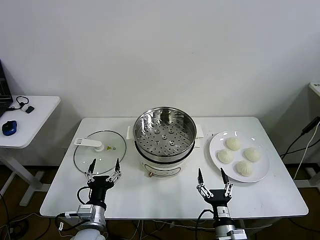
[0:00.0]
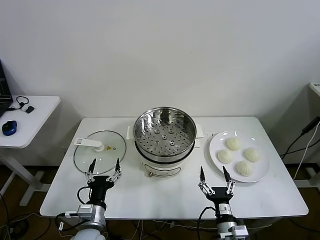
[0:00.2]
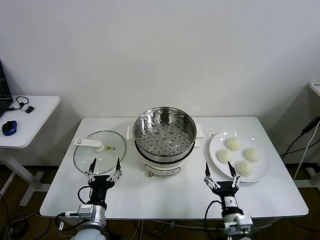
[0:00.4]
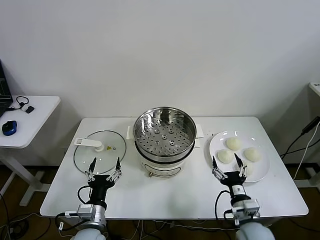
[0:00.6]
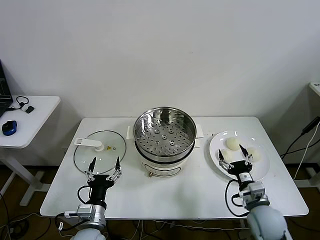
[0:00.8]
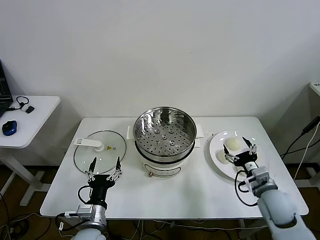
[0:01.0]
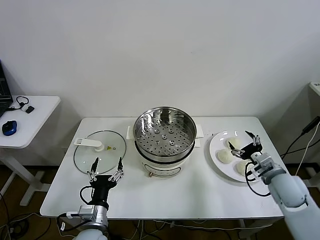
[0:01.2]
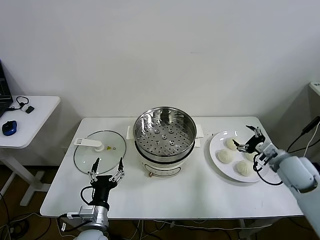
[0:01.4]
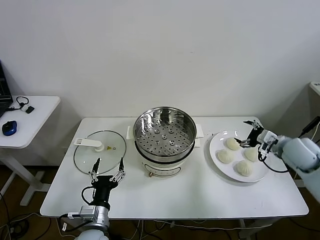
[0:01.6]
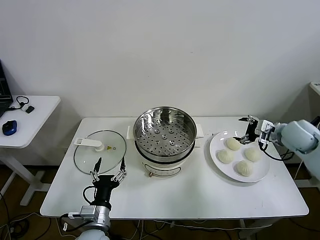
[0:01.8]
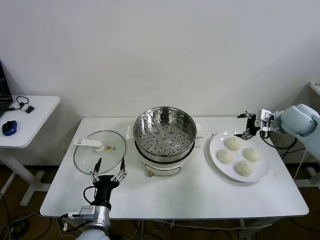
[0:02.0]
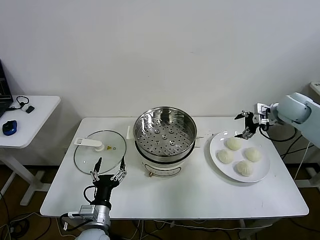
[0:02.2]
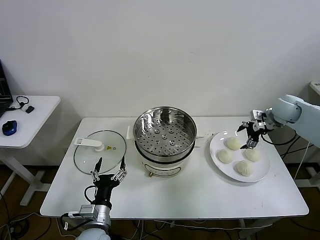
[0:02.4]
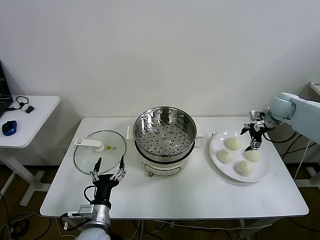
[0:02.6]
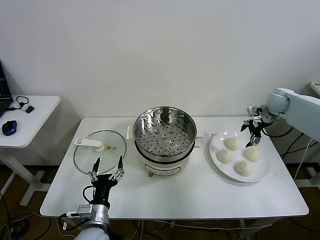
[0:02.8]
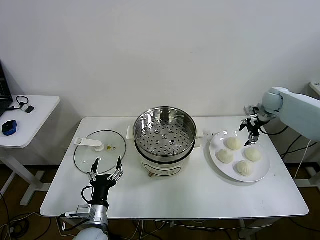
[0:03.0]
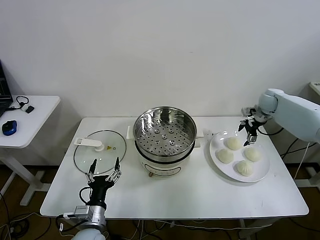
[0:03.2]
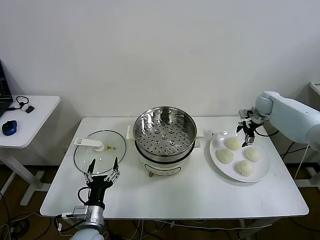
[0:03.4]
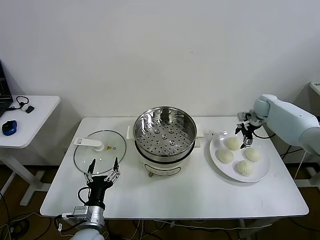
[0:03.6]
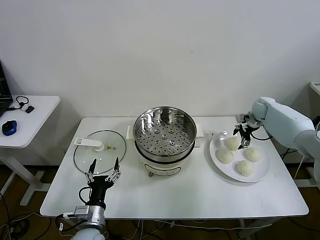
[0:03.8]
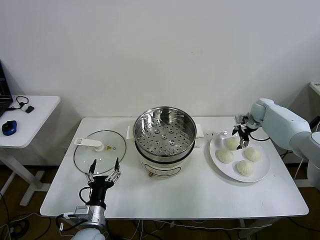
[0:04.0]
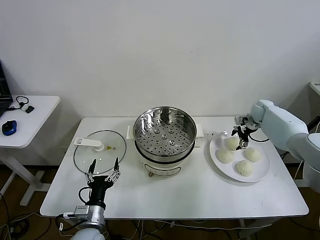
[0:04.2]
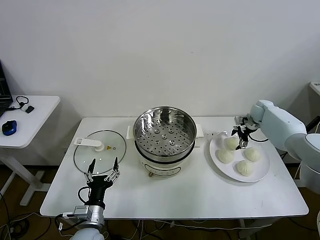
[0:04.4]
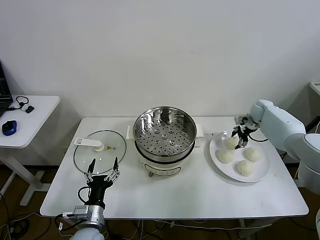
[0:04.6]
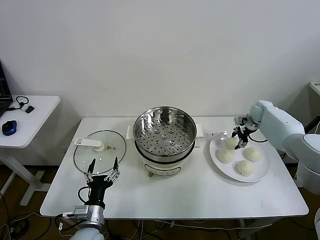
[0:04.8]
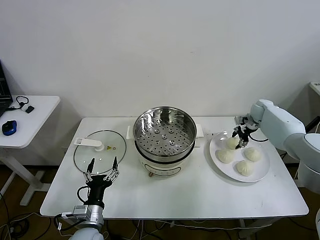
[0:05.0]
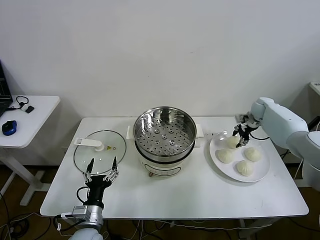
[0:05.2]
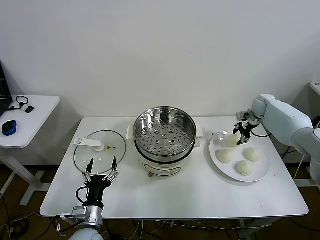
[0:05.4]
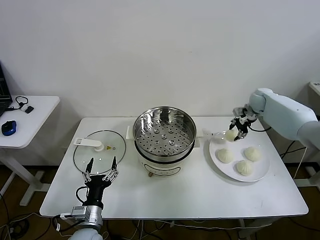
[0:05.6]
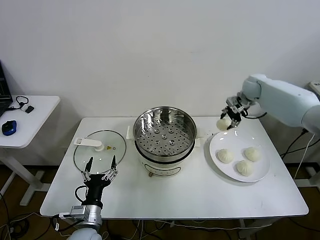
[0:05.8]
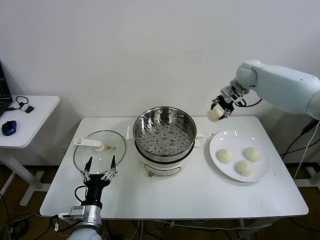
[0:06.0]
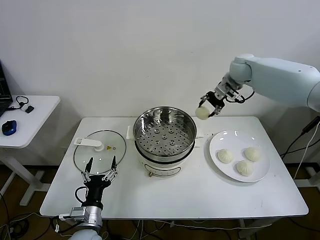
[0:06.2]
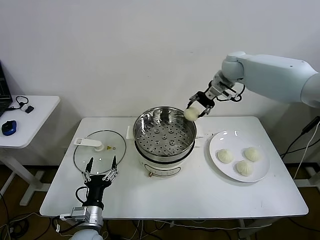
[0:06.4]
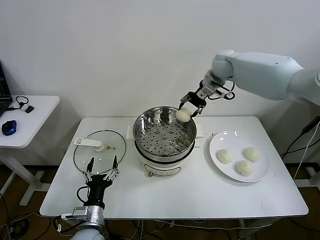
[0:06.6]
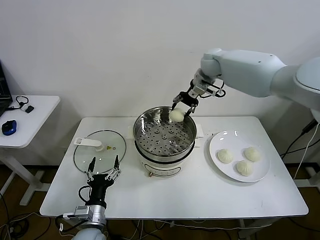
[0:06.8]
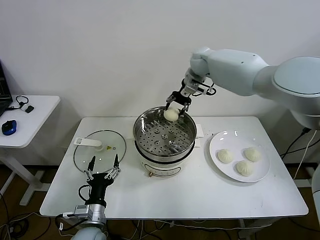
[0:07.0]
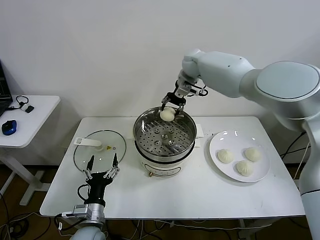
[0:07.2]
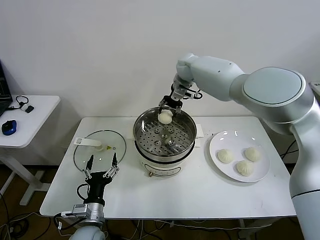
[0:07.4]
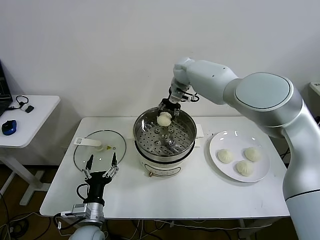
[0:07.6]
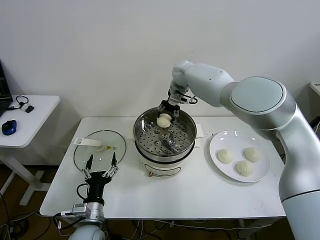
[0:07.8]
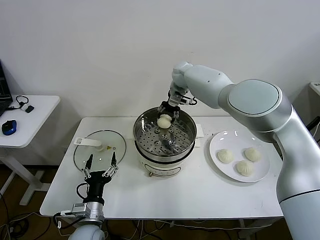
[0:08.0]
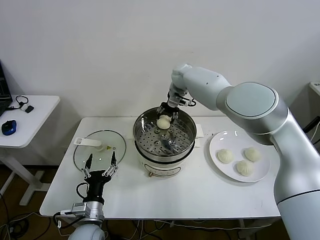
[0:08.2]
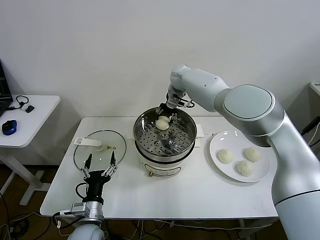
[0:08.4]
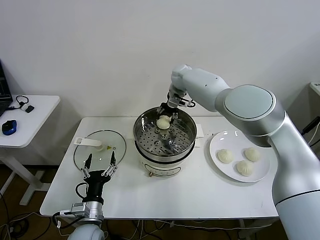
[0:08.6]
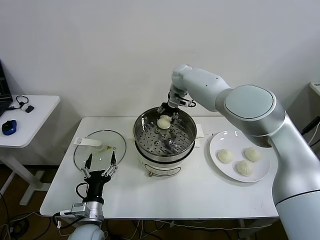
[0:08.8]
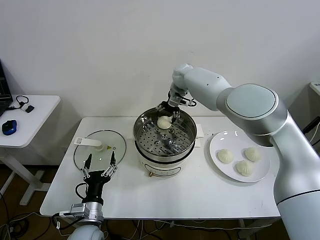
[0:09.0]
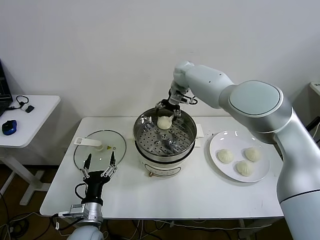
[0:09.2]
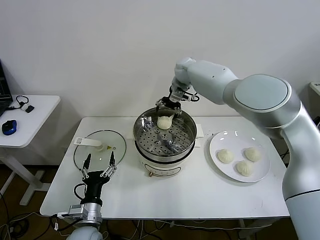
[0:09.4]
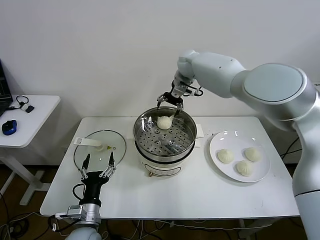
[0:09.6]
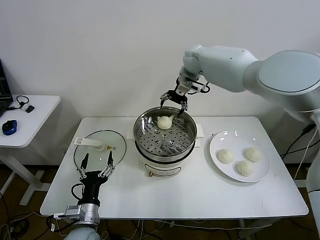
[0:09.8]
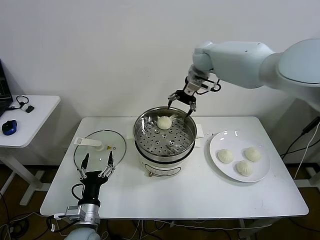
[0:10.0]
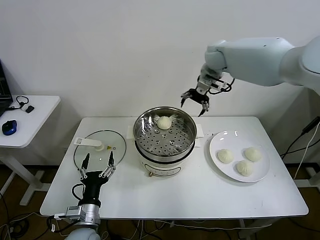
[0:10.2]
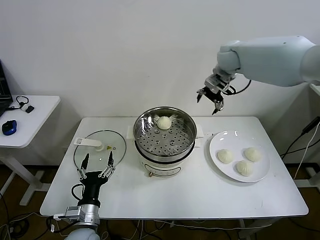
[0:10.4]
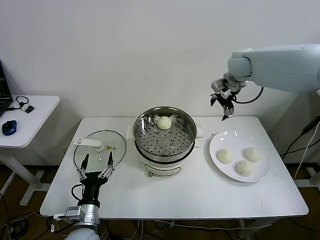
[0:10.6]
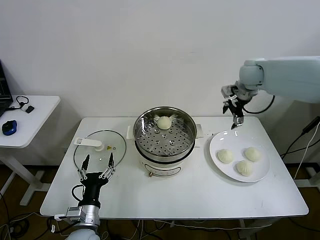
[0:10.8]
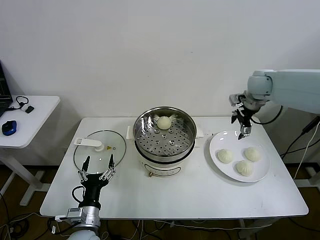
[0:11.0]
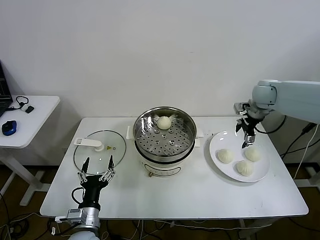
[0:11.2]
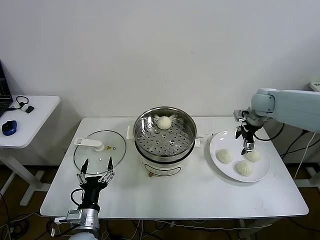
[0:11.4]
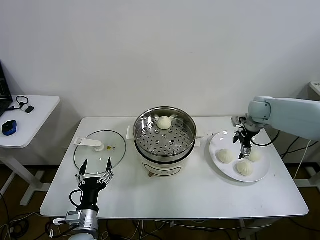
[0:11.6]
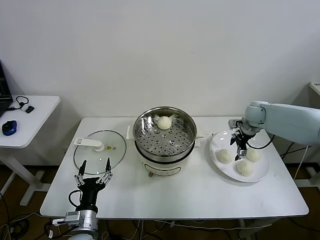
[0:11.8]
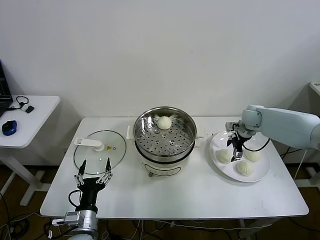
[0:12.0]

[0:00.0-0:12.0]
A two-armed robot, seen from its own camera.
Step, 0:00.0 to 0:04.8: Grasp the baozi in the plate with right gripper.
Step, 0:05.0 to 0:09.2: Place the baozi on the steamer with right gripper.
0:01.6 to 0:03.0: The right gripper is displaced forward by approximately 20 cm.
0:03.0 to 0:04.4: The right gripper is displaced downward by approximately 10 cm.
0:04.4 to 0:06.0: The right gripper moves upward and to the left, some 25 cm, and closes.
0:06.0 to 0:07.6: The right gripper is displaced to the left by approximately 20 cm.
0:07.6 to 0:09.0: The right gripper opens its fingers.
0:09.0 to 0:10.4: The right gripper shifts some 20 cm to the right, upward and backward.
0:10.4 to 0:12.0: The right gripper travels downward and to the right by roughly 25 cm.

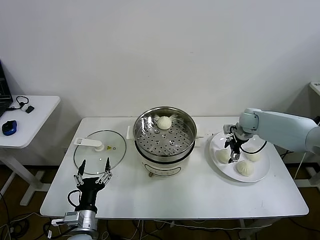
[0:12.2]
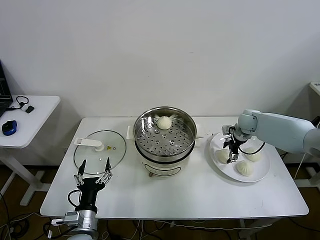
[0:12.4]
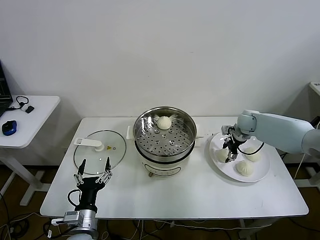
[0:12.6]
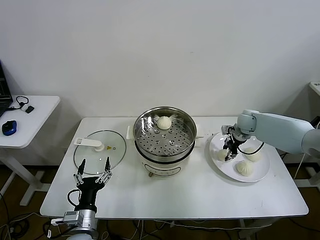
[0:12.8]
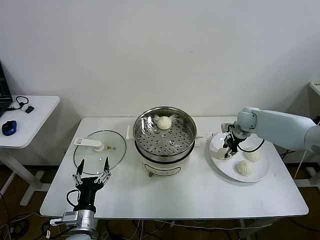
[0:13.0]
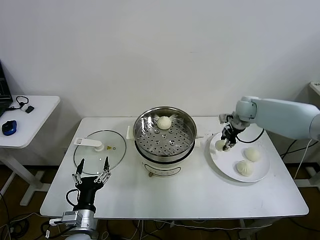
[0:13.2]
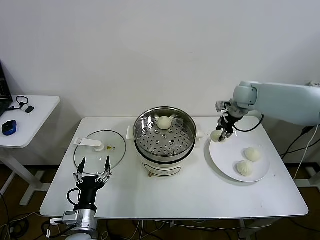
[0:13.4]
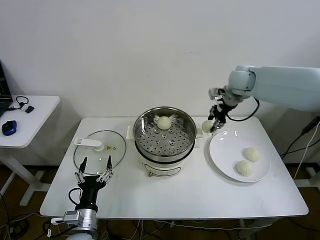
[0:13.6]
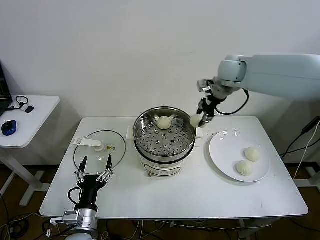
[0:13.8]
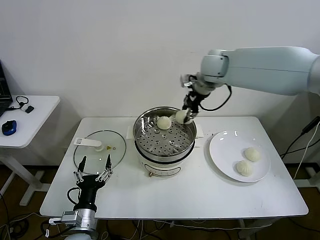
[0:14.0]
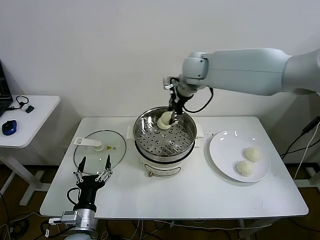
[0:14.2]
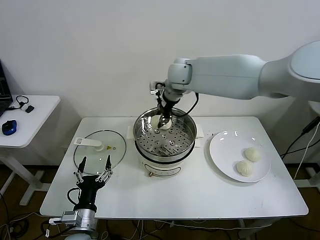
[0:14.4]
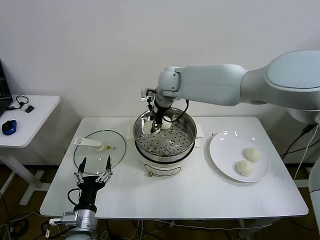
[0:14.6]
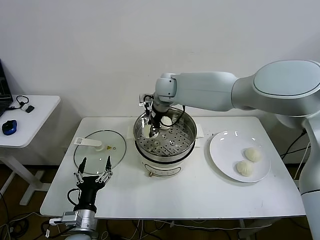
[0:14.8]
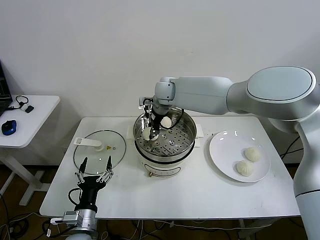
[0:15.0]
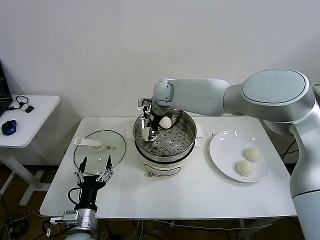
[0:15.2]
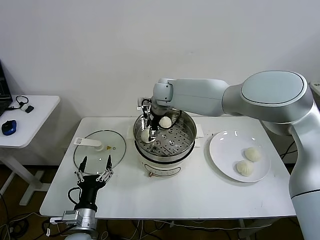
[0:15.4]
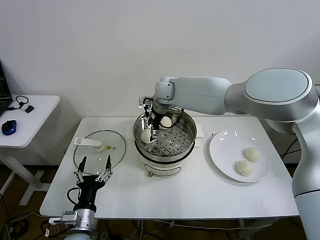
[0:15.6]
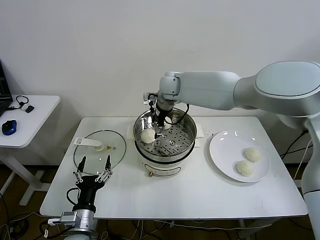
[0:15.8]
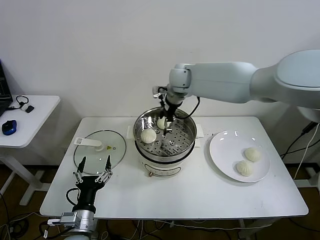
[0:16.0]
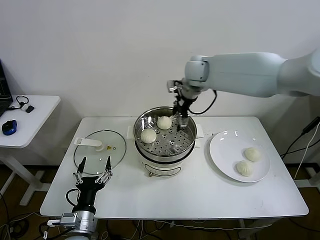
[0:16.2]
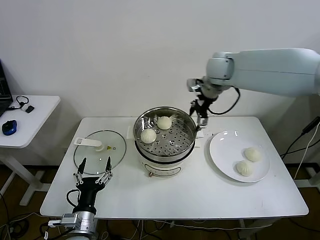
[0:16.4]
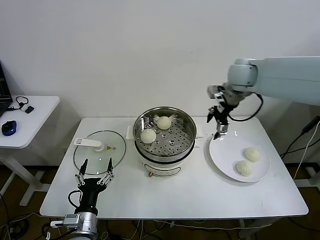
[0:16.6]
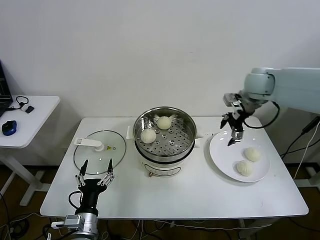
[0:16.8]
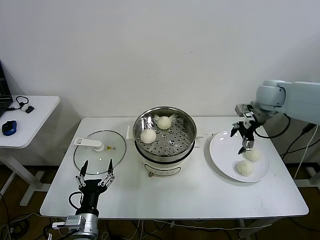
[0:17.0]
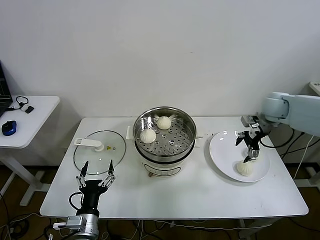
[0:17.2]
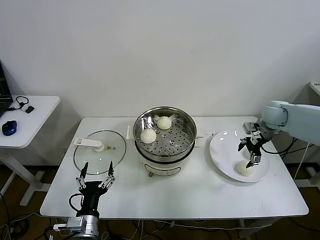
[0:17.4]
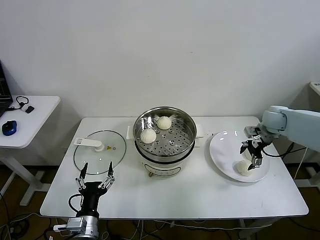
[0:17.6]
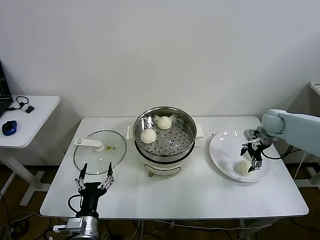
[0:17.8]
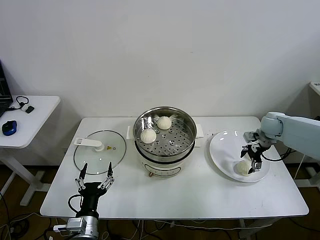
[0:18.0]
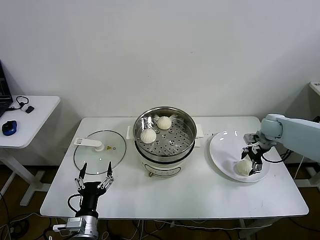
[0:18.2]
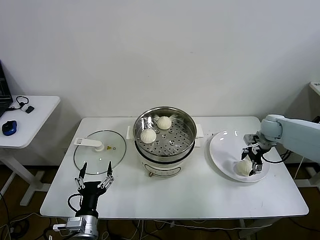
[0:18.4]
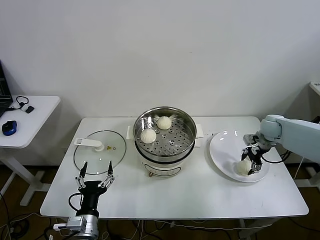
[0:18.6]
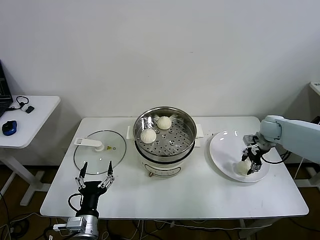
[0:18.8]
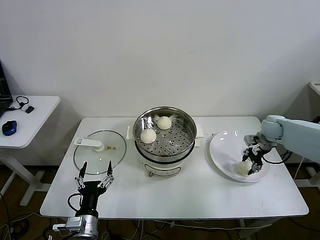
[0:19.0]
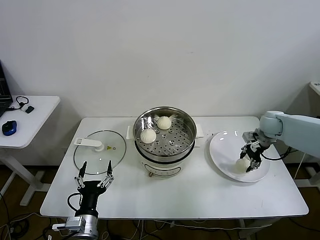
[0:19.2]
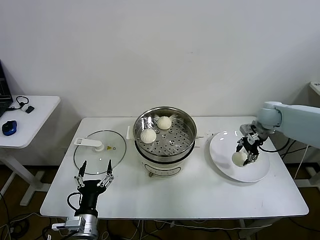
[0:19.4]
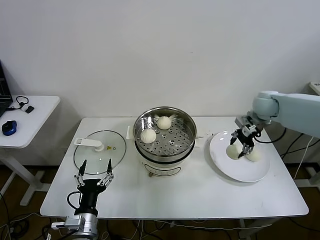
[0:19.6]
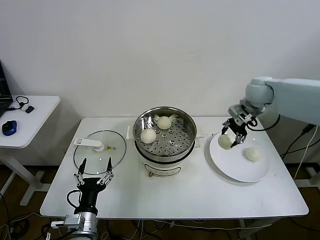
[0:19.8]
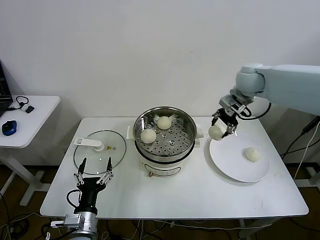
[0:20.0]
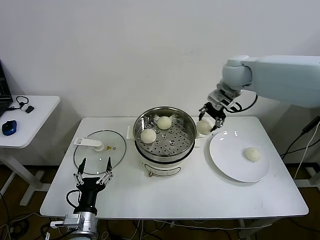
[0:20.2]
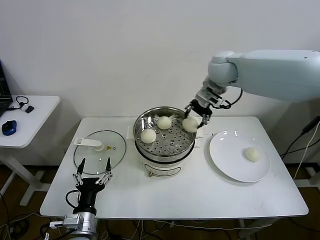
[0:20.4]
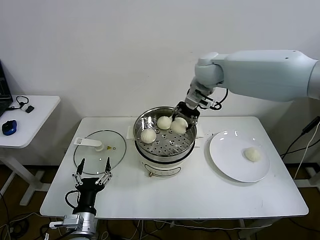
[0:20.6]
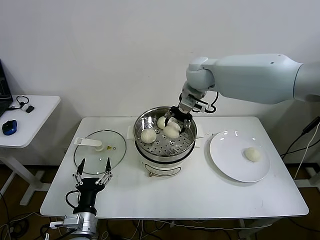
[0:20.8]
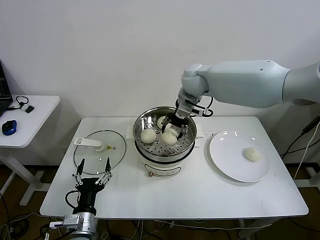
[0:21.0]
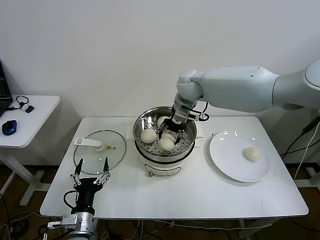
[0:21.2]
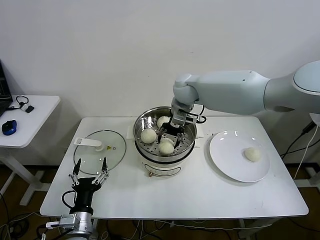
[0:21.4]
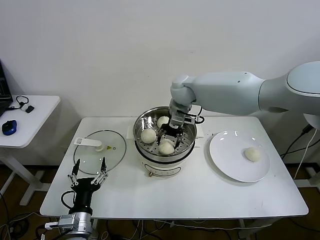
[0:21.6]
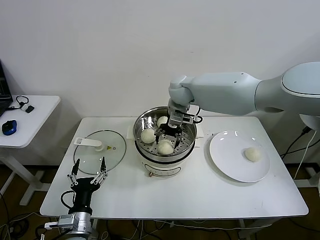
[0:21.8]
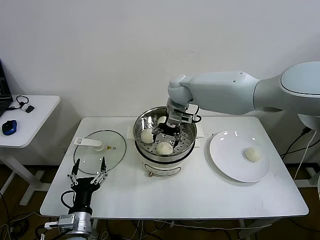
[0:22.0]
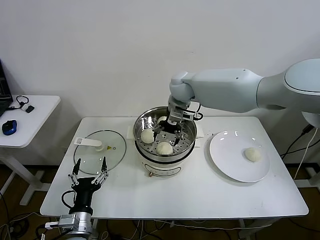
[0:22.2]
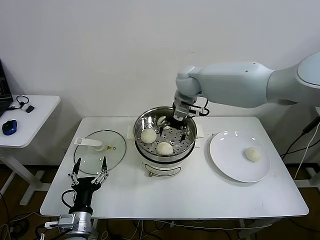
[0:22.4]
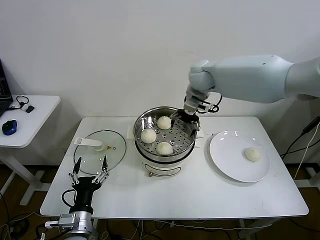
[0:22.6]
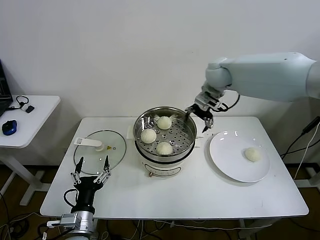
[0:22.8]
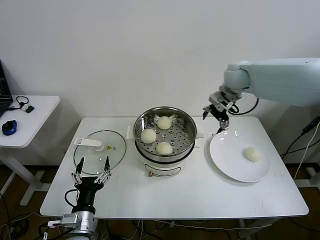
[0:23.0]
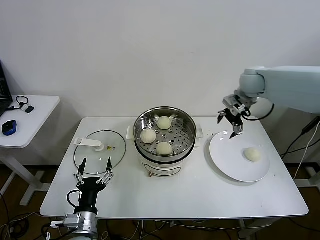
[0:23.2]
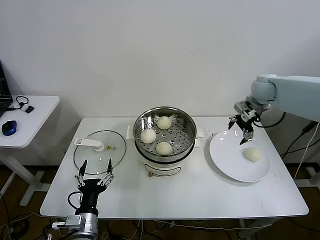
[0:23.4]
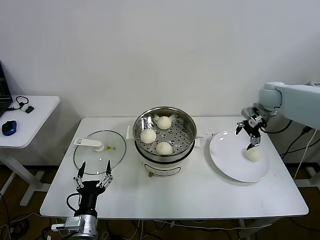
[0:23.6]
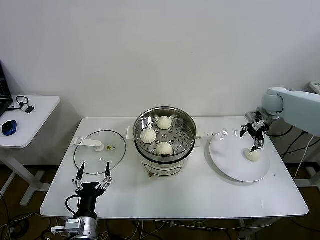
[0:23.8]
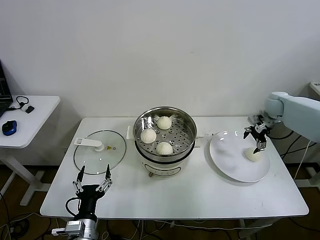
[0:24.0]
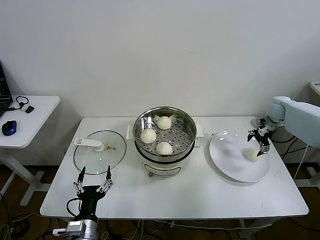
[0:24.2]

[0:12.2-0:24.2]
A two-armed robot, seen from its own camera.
Step, 0:13.0 to 0:15.4: Place the baozi on the steamer with right gripper.
Step, 0:15.6 to 0:18.8: Grasp the baozi in the plate with right gripper.
Step, 0:19.0 to 0:22.0: Place the baozi on the steamer with right gripper.
0:12.2 to 0:13.8: The right gripper travels upward and to the left by some 30 cm, and closes.
0:13.8 to 0:15.2: The right gripper moves to the left and downward, approximately 20 cm, and opens its fingers.
0:15.2 to 0:16.6: The right gripper is displaced to the right by some 25 cm, and opens up.
0:16.6 to 0:18.2: The right gripper moves downward and to the right, about 25 cm.
0:18.2 to 0:19.8: The right gripper goes about 20 cm upward and to the left, and closes.
0:19.8 to 0:21.2: The right gripper travels to the left by approximately 25 cm.
0:21.2 to 0:22.6: The right gripper changes place by roughly 5 cm, and opens.
0:22.6 to 0:24.2: The right gripper travels to the right and downward by some 35 cm.
